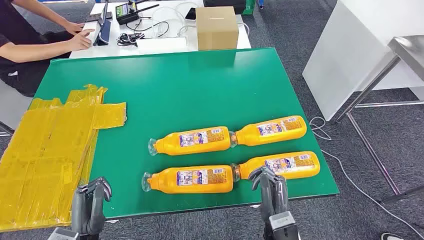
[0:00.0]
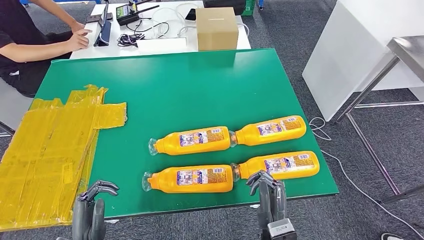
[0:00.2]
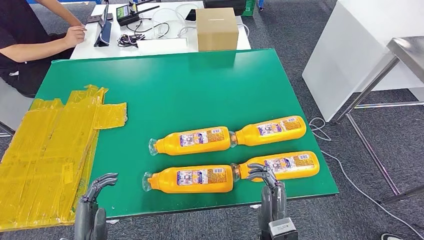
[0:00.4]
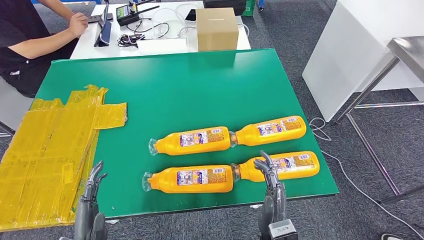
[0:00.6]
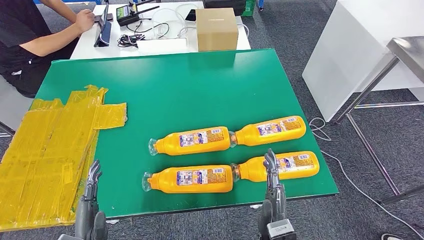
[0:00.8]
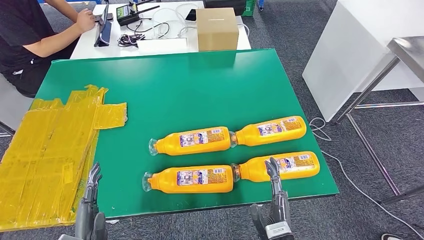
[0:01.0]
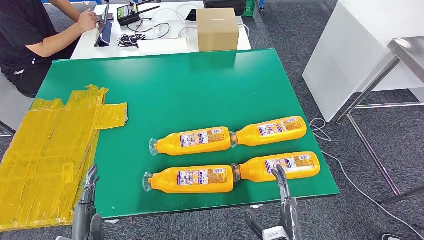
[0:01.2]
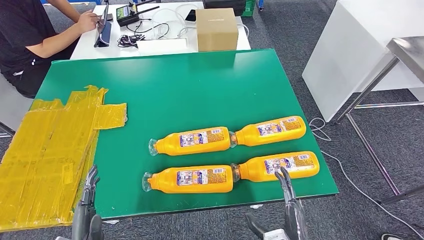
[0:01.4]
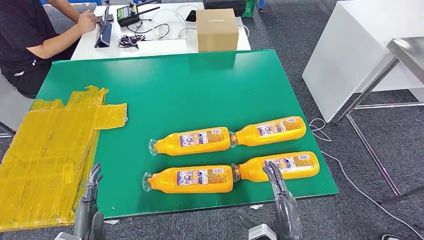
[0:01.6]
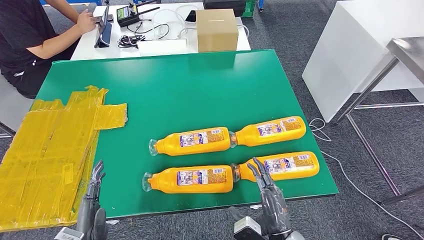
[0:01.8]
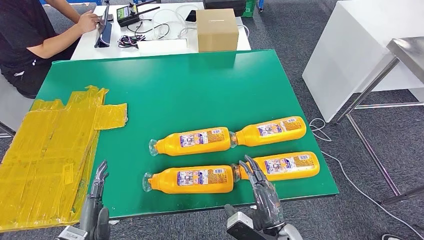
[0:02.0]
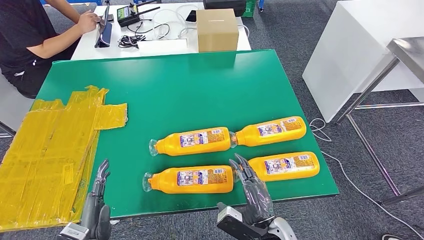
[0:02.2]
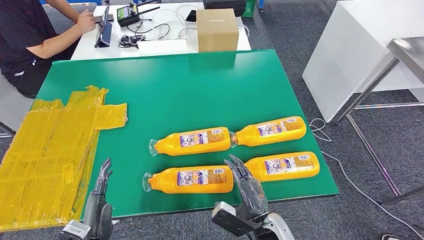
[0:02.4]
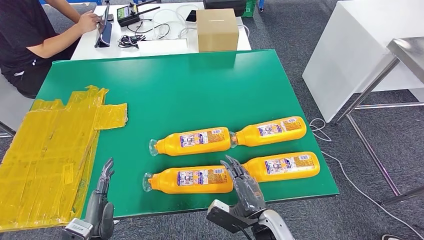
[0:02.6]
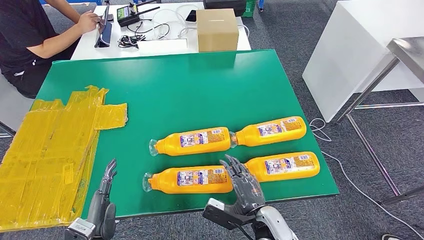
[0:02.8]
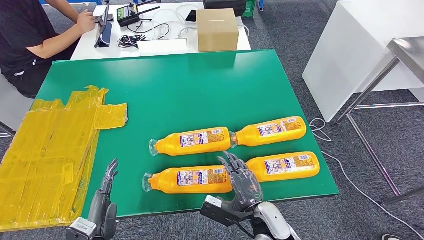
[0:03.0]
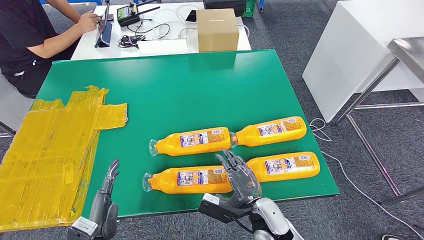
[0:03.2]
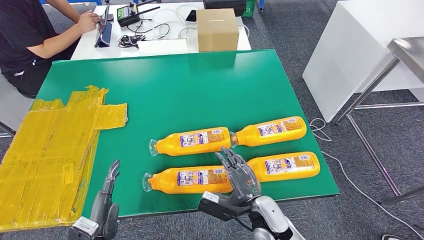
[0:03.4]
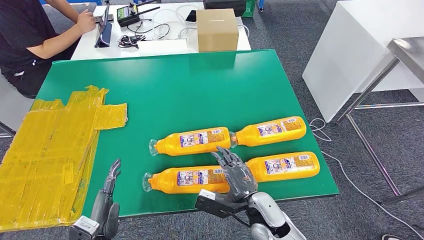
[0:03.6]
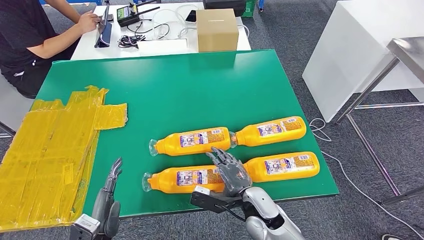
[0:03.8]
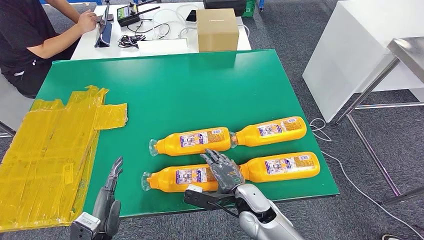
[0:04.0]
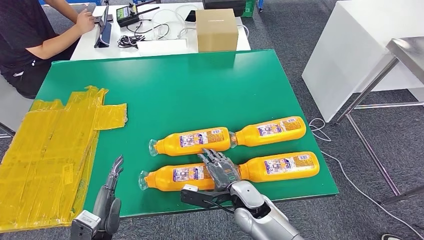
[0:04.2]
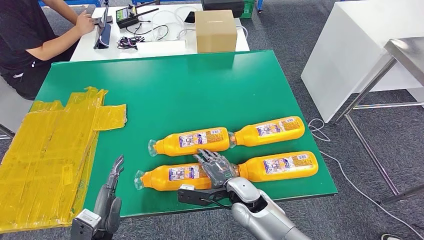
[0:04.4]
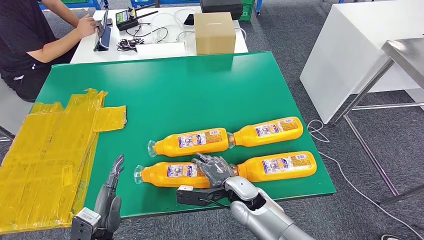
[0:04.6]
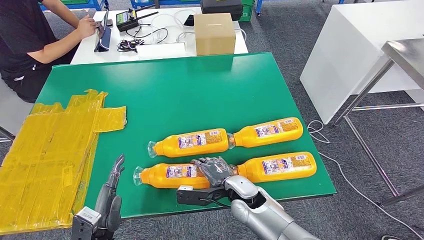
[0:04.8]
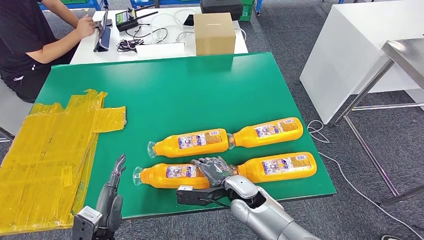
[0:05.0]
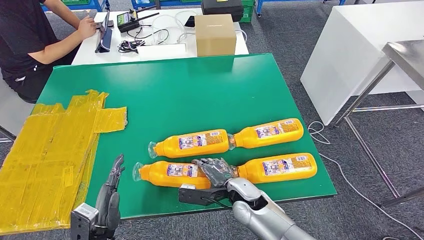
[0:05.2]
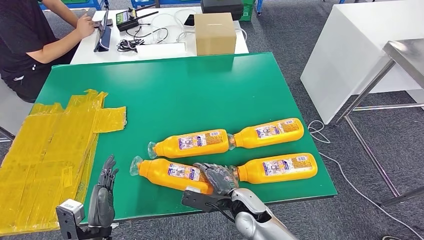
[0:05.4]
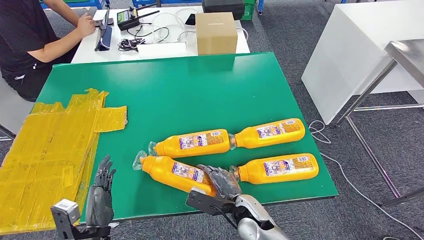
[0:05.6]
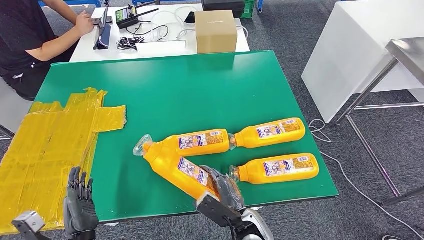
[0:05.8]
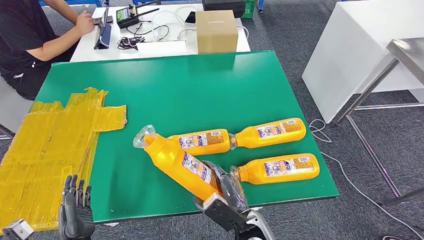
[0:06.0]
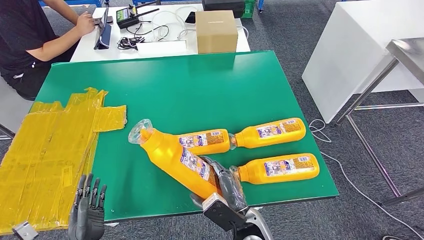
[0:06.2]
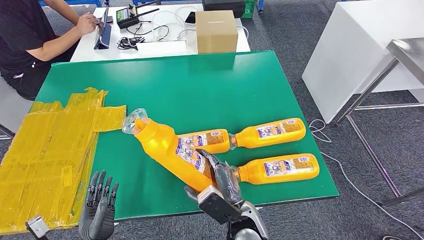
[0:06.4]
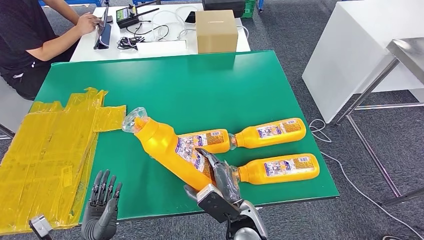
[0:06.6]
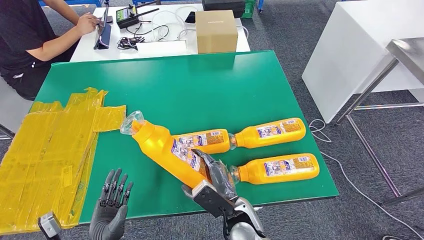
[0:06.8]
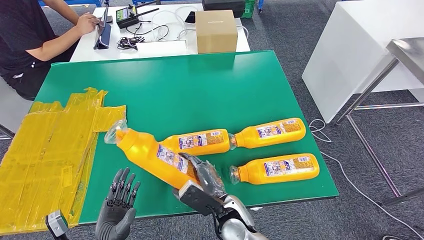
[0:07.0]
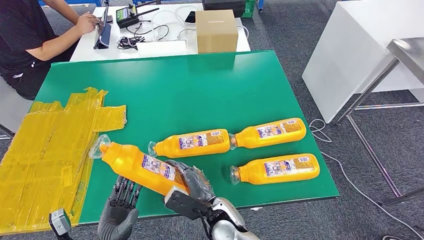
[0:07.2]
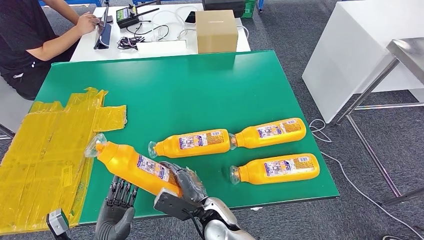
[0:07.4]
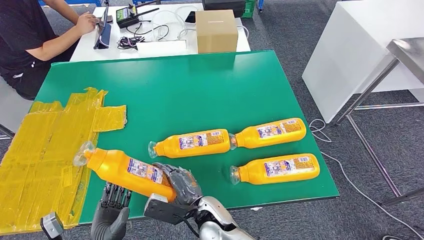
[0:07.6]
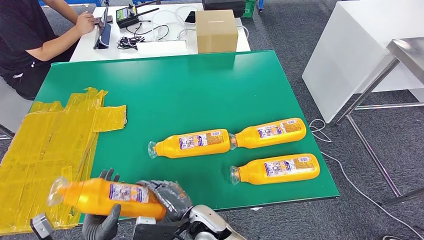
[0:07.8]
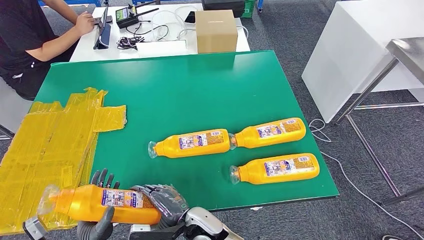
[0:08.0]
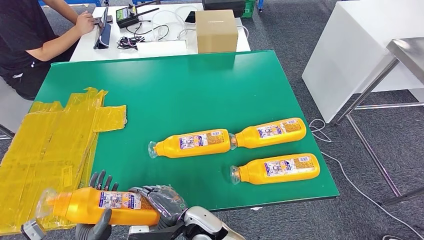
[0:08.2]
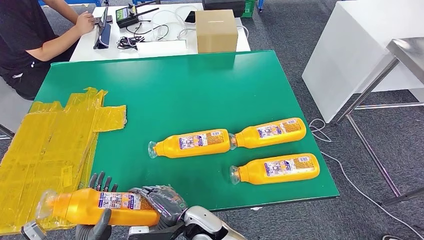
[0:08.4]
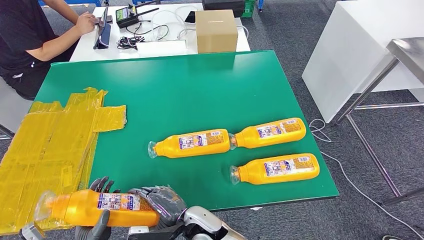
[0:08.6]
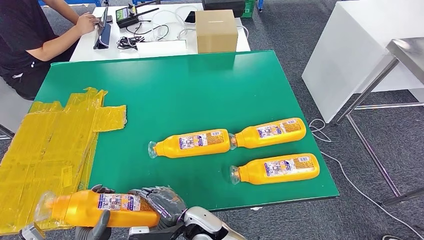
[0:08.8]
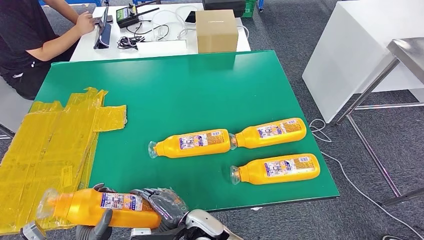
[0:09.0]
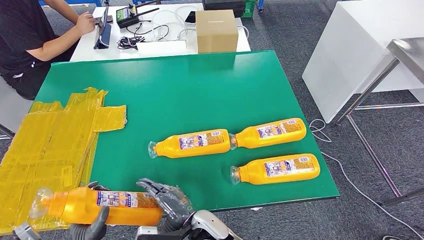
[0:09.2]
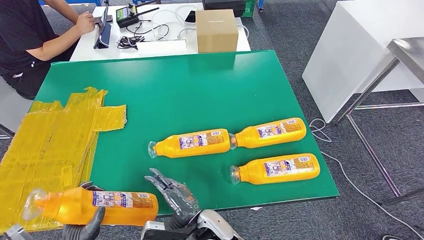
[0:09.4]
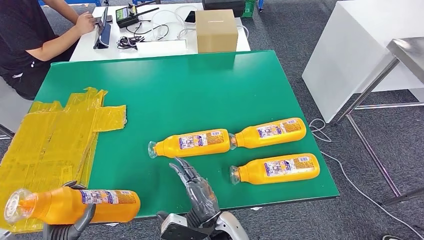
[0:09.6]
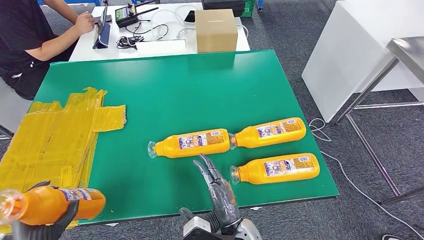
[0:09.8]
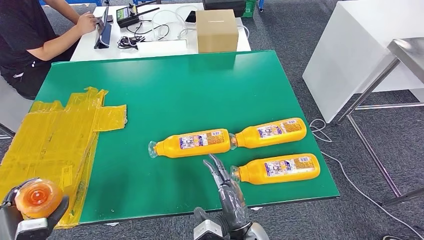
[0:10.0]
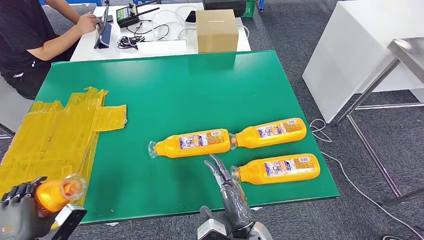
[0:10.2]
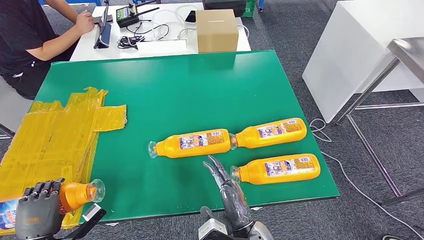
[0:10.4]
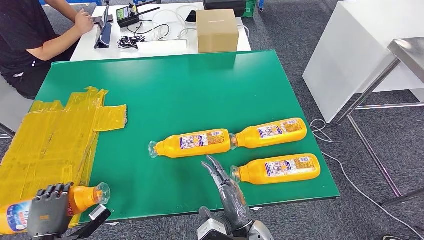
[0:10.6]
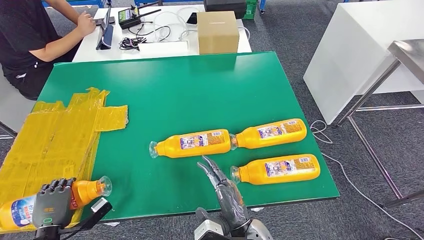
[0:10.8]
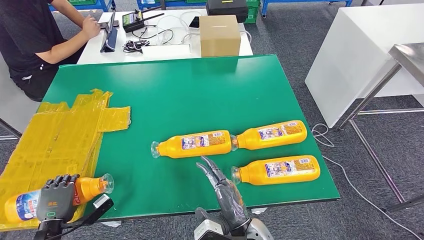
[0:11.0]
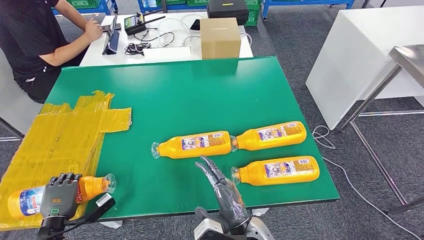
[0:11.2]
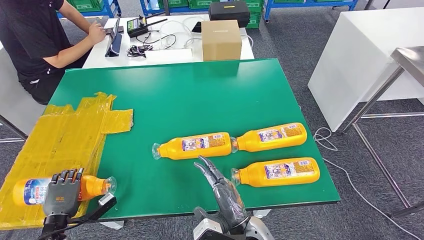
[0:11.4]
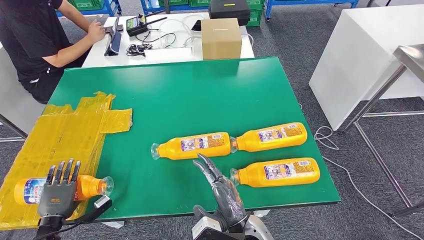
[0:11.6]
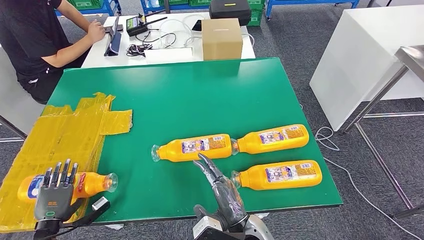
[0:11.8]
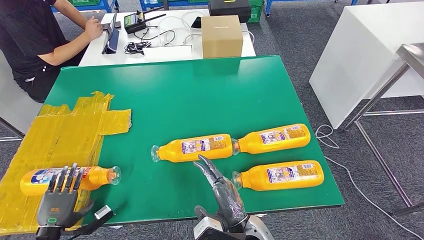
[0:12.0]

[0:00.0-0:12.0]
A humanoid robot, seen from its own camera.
Step, 0:00.0 to 0:06.8: Take the fast-moving consumer goods bottle from the table.
Step, 0:07.0 to 0:10.6: Flip the fast-moving consumer goods bottle to the front side.
0:01.6 to 0:03.0: The right hand goes approximately 10 cm forward.
0:03.0 to 0:04.4: The right hand goes some 5 cm forward.
0:04.4 to 0:06.0: The right hand moves backward, about 10 cm.
0:06.0 to 0:07.6: The left hand changes place by about 5 cm. The right hand heads to the left, covering about 10 cm.
0:07.6 to 0:09.0: The hands move only a little.
0:09.0 to 0:10.4: The right hand heads to the right, covering some 10 cm; the left hand is displaced to the left by about 10 cm.

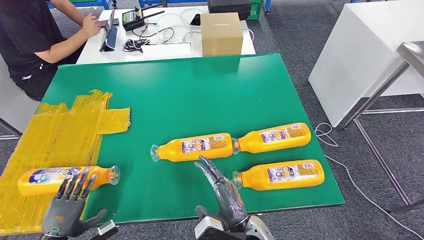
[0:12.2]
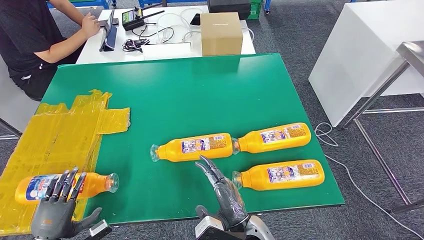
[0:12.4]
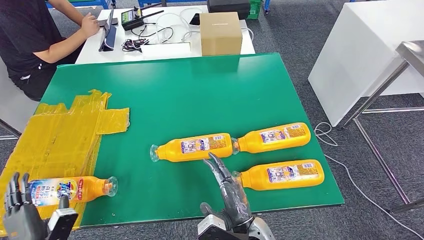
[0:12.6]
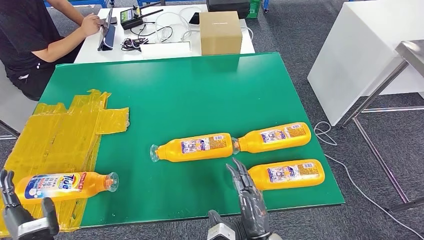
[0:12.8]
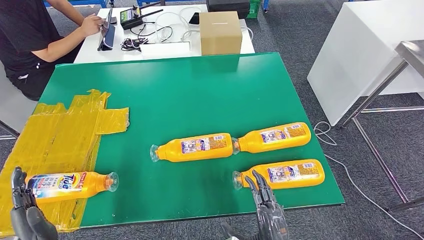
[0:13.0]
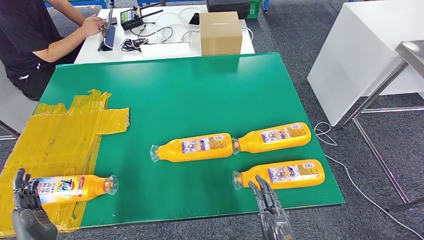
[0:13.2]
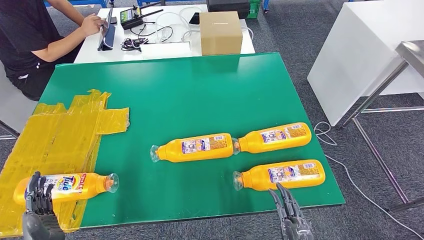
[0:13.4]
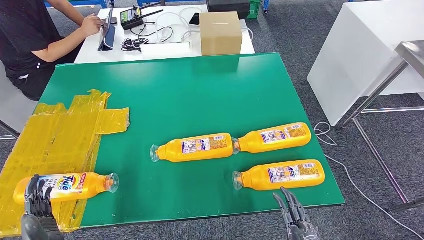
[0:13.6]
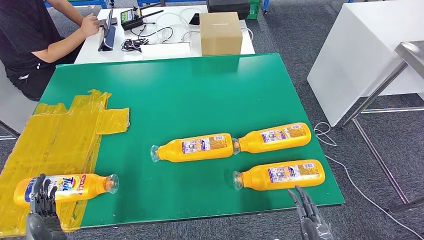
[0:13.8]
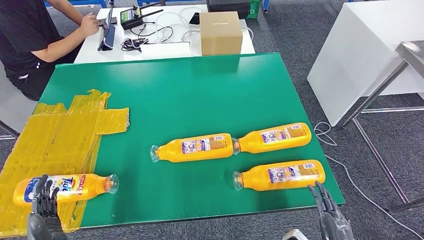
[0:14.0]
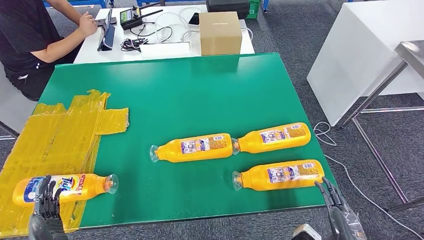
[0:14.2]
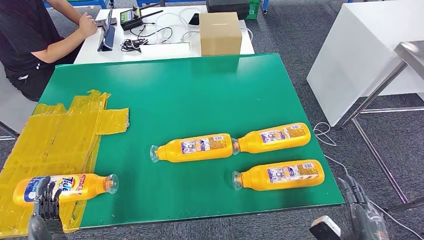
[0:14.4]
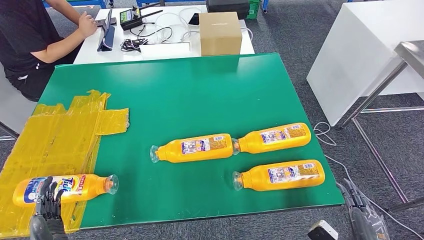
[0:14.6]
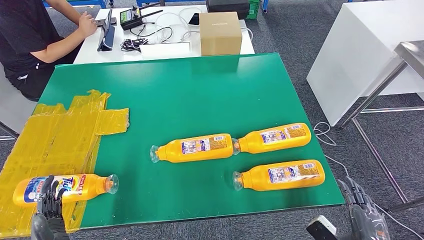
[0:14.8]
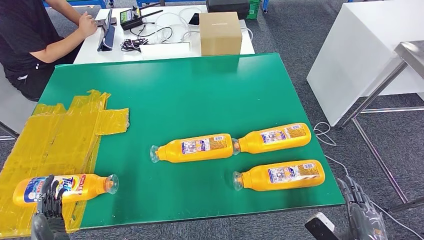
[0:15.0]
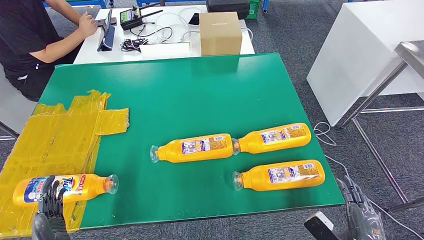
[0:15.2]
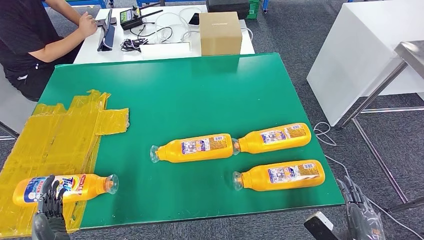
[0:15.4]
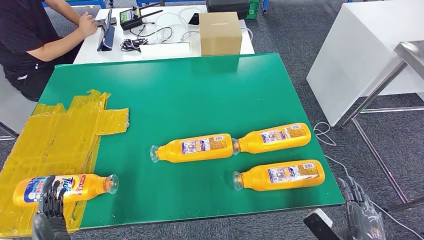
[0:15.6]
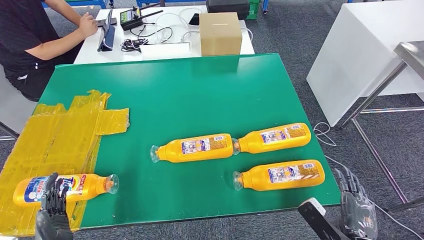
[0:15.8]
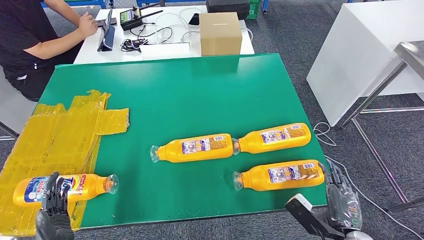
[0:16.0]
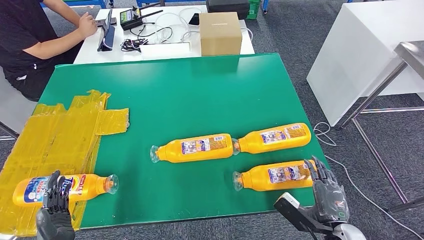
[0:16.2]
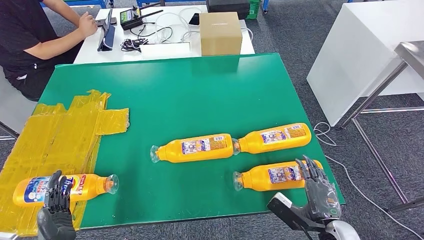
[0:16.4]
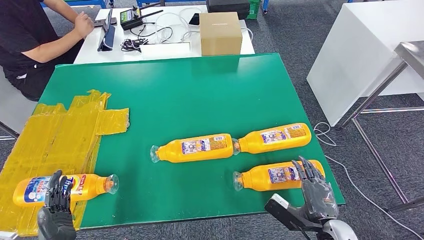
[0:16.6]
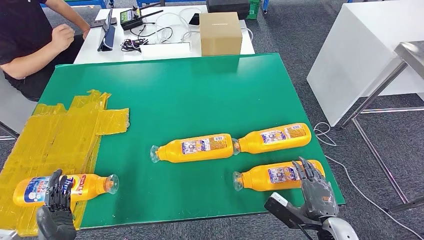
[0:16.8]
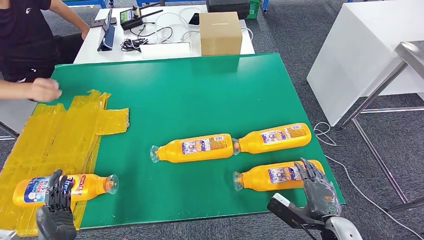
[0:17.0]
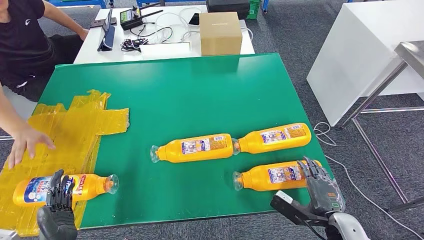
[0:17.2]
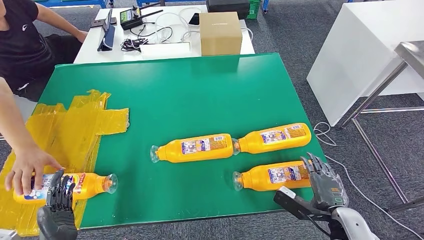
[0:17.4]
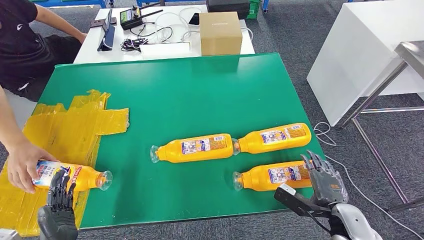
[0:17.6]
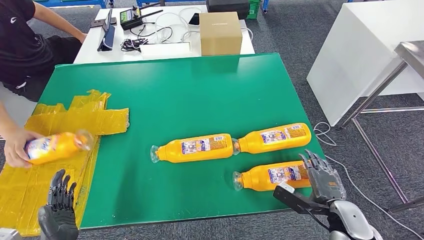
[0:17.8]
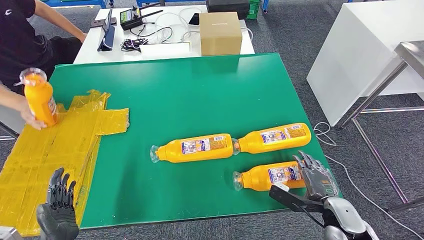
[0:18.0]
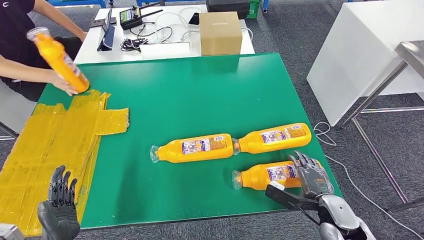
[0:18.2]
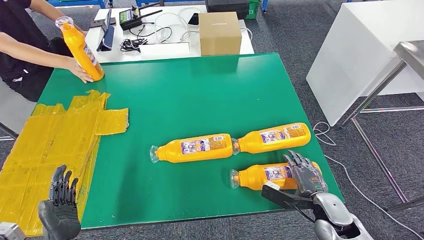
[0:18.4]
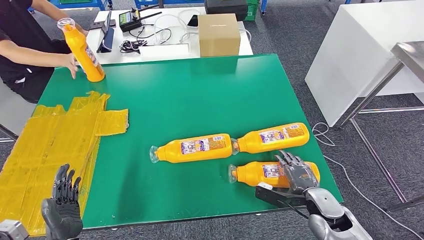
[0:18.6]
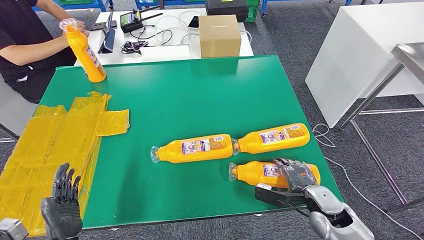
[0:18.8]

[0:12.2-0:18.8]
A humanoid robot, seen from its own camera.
0:12.2 to 0:13.8: The left hand is displaced to the right, upward and backward by some 10 cm, while the right hand shifts some 20 cm to the right and backward.
0:13.8 to 0:15.4: The right hand goes roughly 10 cm to the right.
0:15.4 to 0:17.2: The right hand moves forward, some 10 cm.
